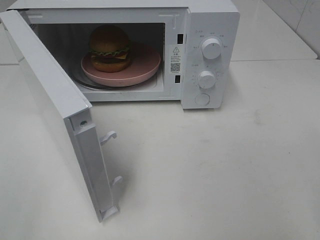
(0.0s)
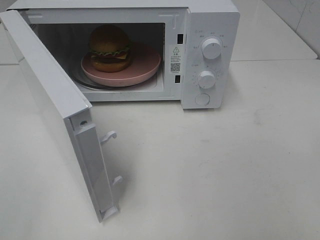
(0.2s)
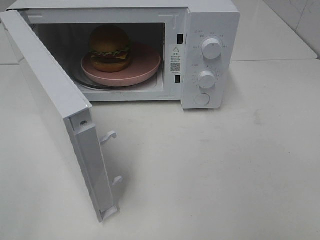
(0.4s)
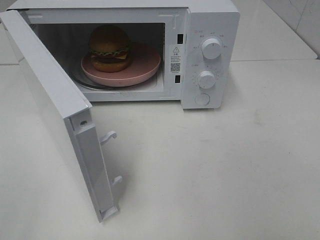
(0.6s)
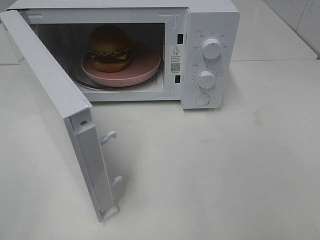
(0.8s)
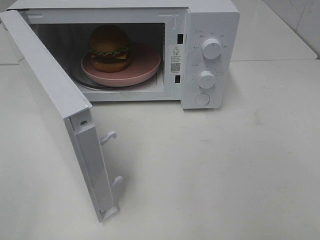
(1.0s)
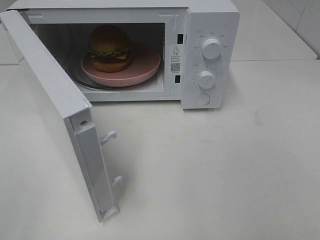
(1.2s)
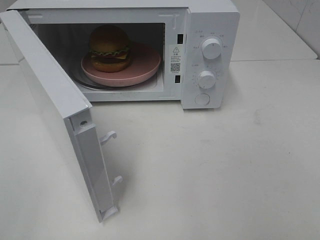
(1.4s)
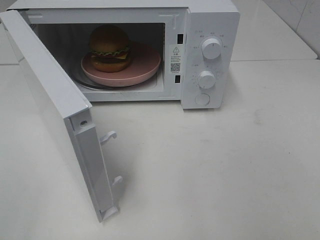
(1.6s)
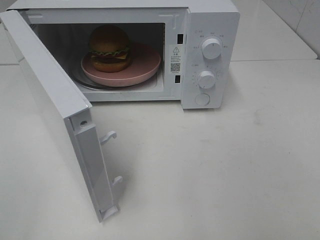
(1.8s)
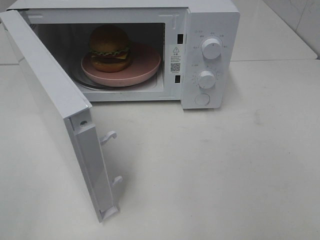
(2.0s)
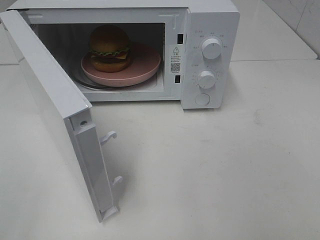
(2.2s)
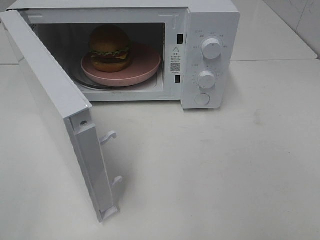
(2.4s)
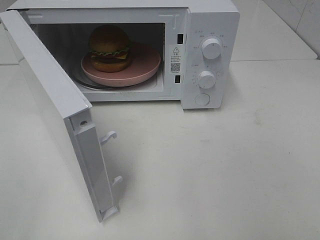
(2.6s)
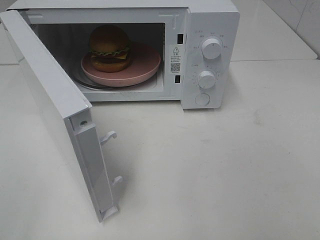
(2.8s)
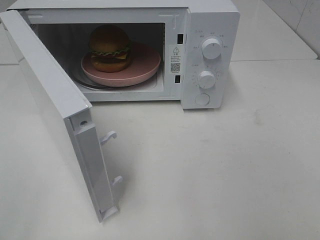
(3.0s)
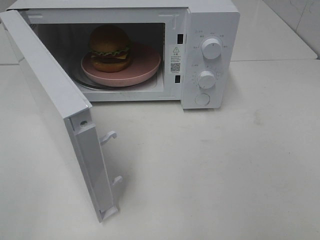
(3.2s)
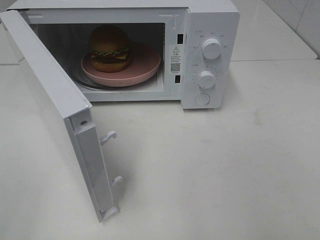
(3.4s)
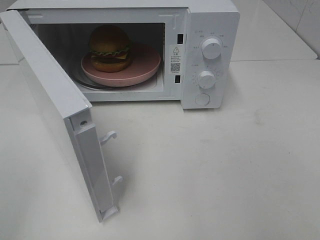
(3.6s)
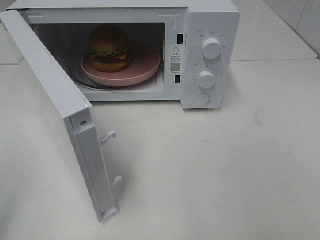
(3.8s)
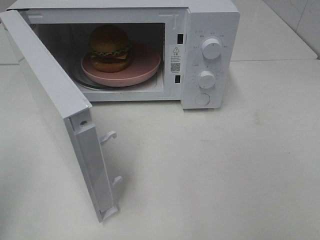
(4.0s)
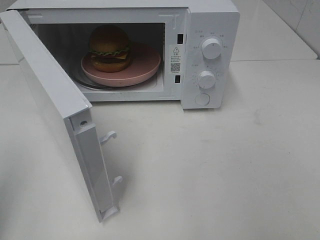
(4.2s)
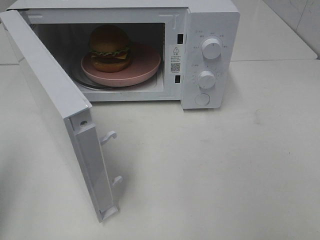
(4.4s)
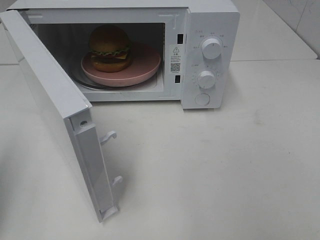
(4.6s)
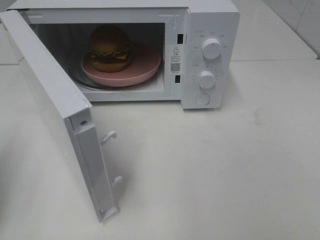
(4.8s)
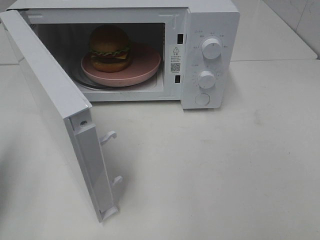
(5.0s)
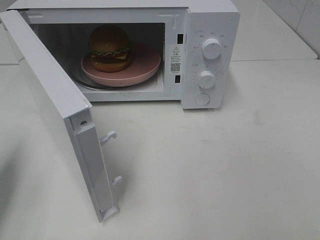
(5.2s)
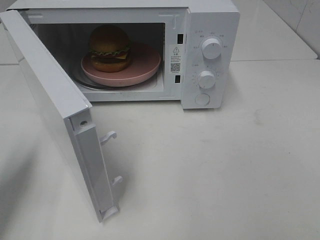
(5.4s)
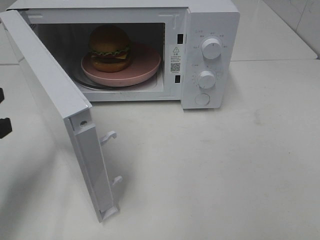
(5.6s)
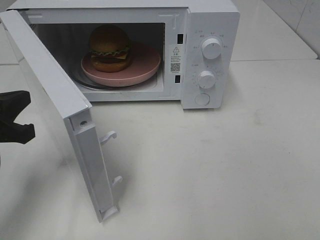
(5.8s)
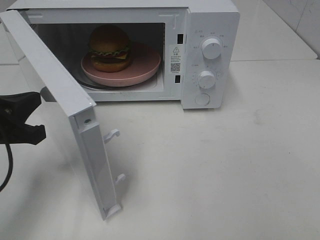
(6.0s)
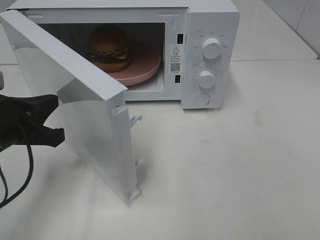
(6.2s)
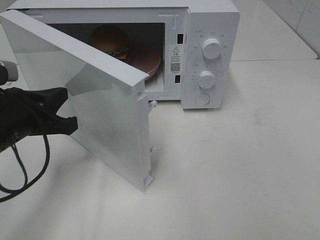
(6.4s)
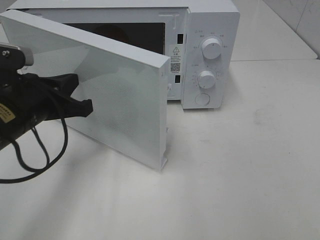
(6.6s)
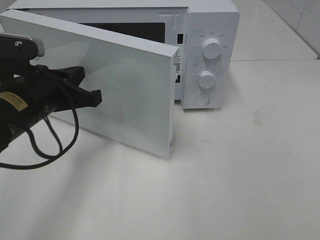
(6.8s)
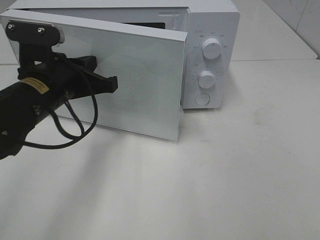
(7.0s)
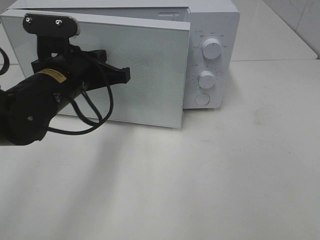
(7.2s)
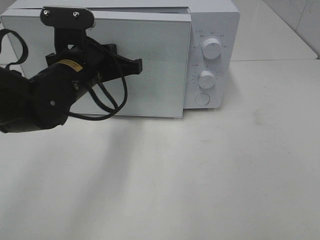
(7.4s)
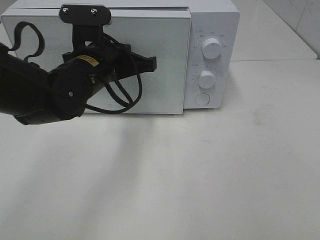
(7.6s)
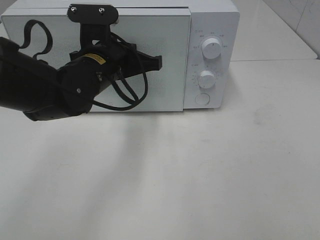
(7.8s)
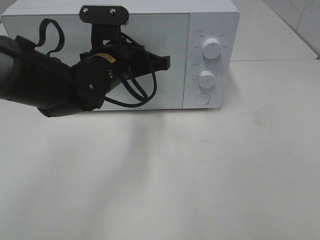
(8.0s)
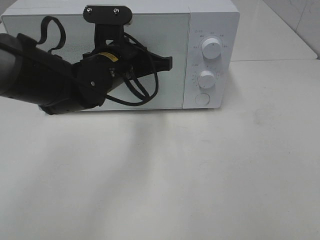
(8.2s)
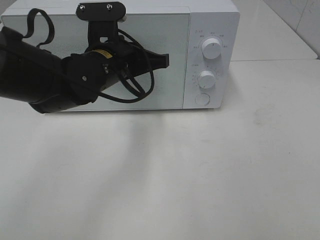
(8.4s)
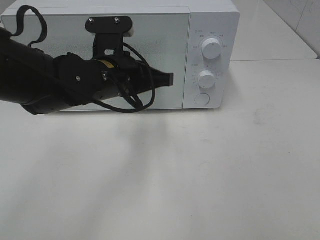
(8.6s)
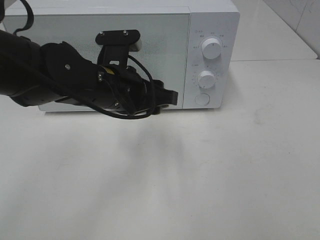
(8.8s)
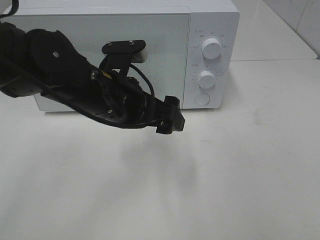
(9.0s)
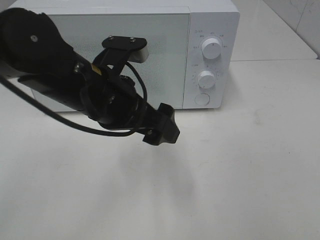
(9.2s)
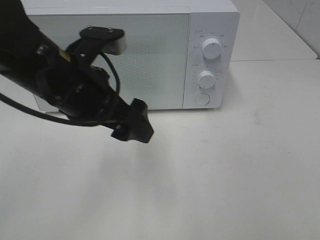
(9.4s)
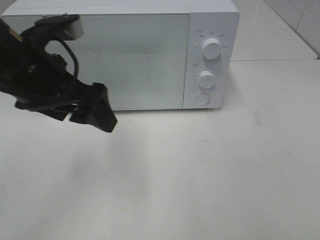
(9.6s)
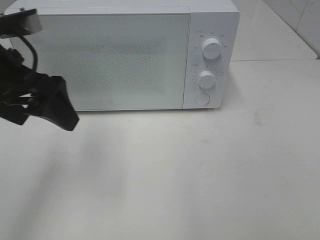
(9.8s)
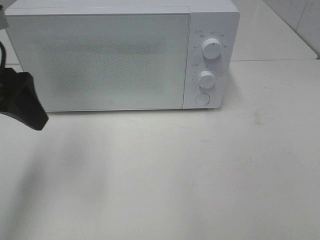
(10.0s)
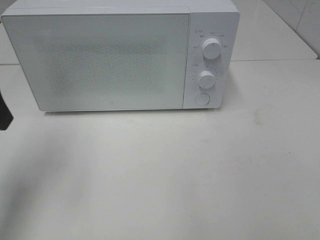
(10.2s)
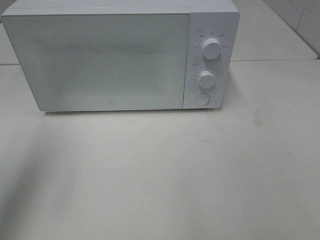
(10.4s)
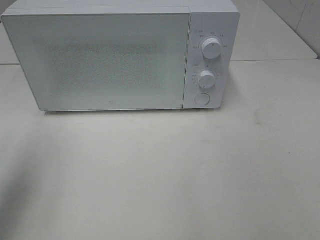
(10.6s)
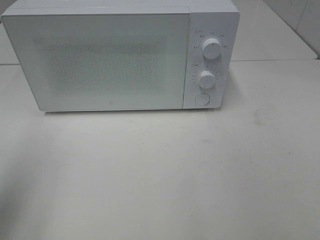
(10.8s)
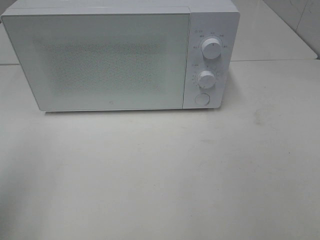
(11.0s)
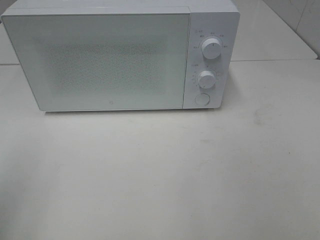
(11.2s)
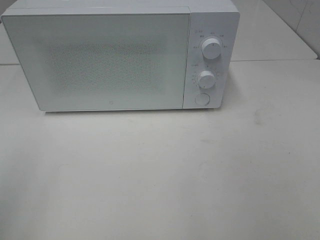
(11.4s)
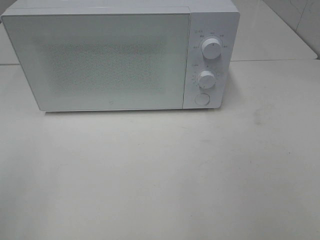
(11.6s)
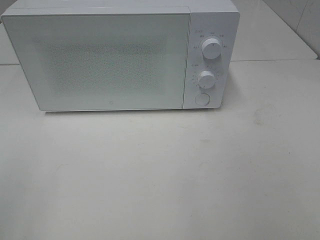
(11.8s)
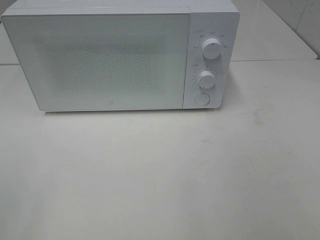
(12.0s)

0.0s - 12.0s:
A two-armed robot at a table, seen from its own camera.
Task of the whole recording: Heat the burger.
Step, 0.0s - 8.6s: Left hand: close the microwave door.
1.6s - 3.0s: Both grippers stay about where they are.
3.0s - 4.4s: The left gripper is displaced forward by some 10 cm, and closes its fingers.
4.4s - 6.0s: The left gripper heads downward, to the right and forward, covering roughly 15 cm.
6.0s - 7.6s: The left gripper heads to the right and forward, covering roughly 20 cm.
7.6s - 9.0s: The left gripper moves backward, approximately 5 cm, and opens up.
9.0s - 10.4s: The left gripper heads to the left and upward, covering some 25 cm.
10.4s - 12.0s: The left gripper is displaced backward by some 20 cm.

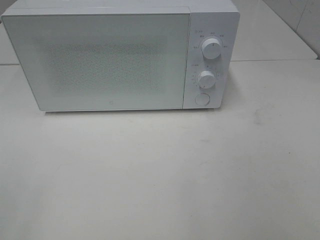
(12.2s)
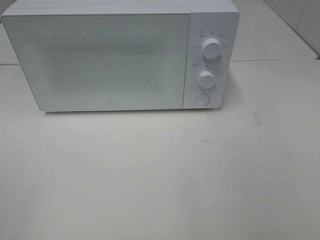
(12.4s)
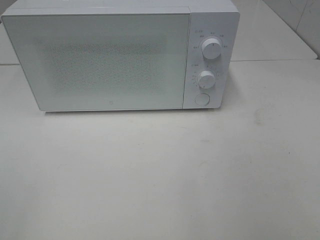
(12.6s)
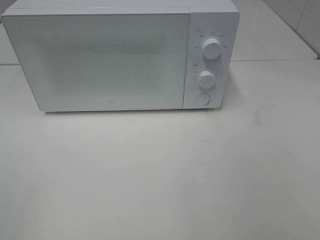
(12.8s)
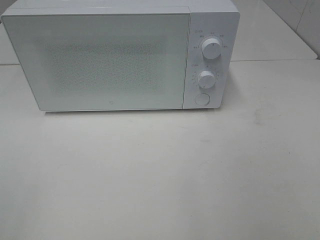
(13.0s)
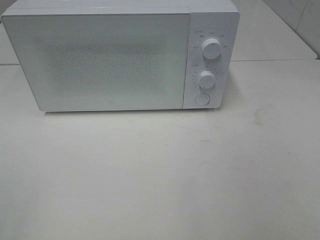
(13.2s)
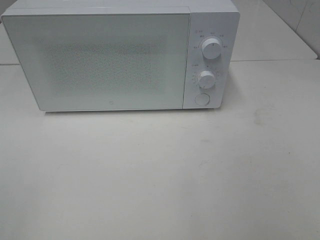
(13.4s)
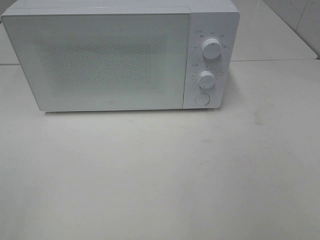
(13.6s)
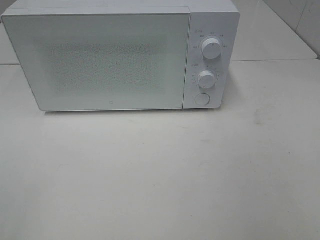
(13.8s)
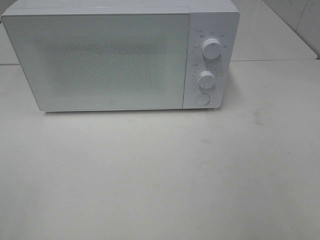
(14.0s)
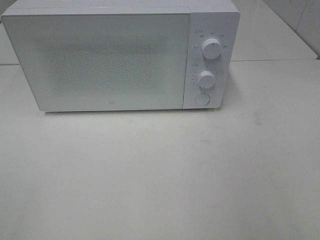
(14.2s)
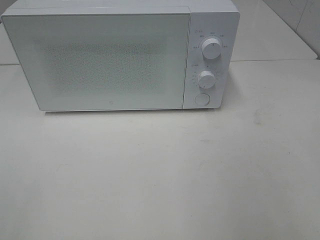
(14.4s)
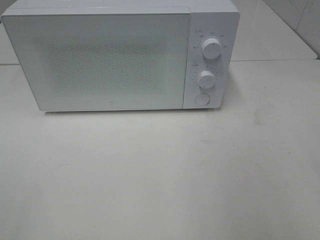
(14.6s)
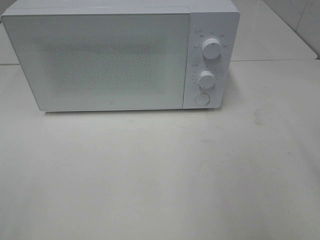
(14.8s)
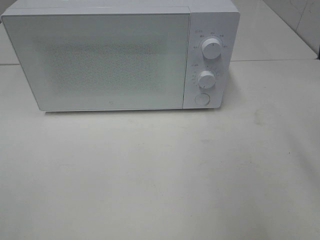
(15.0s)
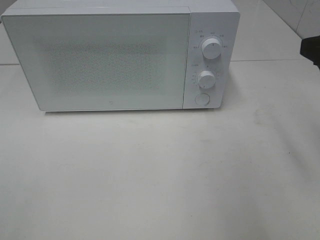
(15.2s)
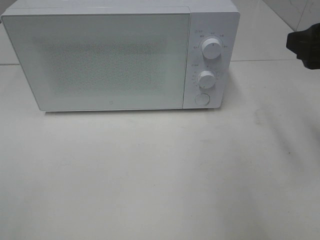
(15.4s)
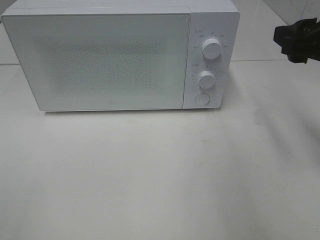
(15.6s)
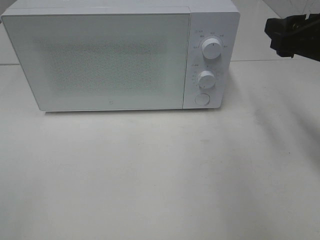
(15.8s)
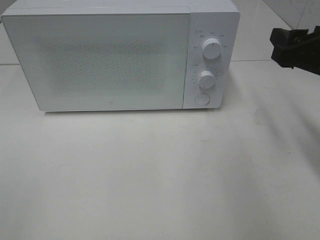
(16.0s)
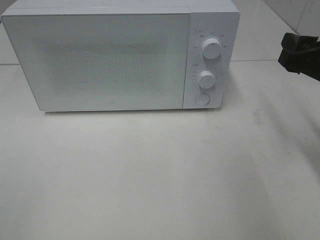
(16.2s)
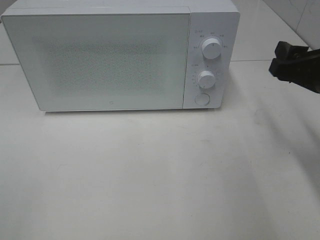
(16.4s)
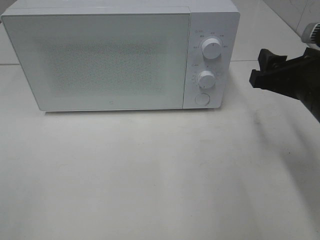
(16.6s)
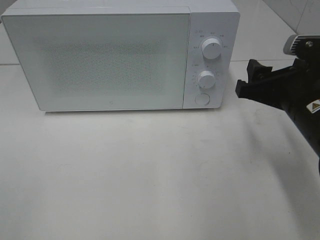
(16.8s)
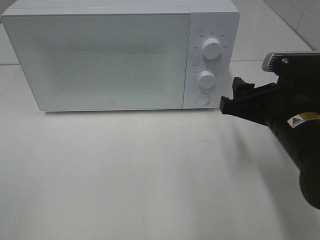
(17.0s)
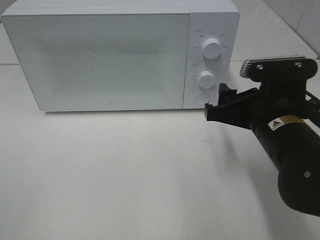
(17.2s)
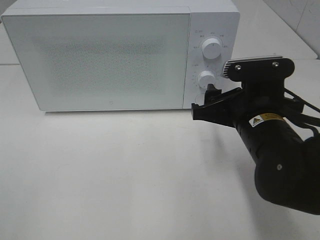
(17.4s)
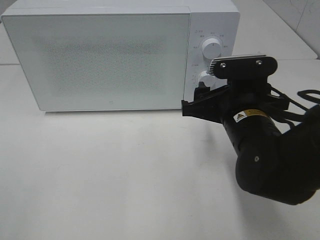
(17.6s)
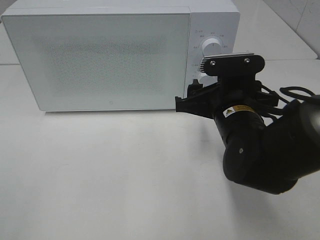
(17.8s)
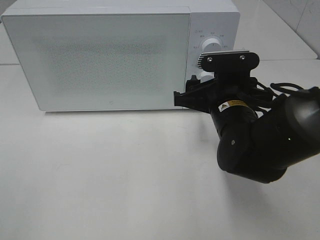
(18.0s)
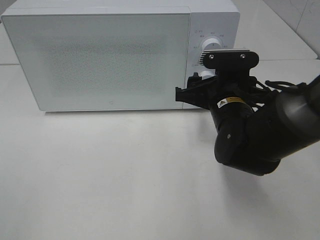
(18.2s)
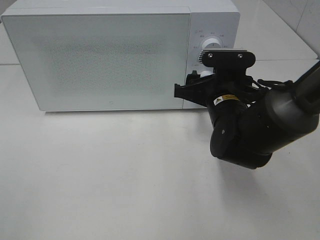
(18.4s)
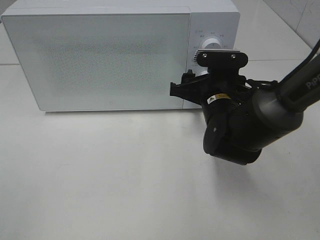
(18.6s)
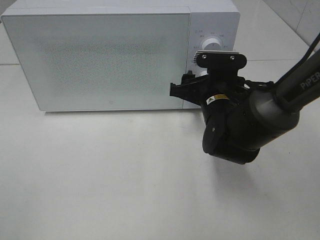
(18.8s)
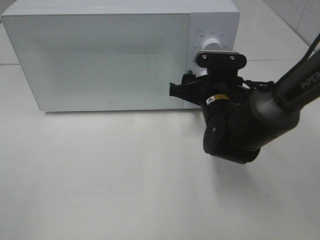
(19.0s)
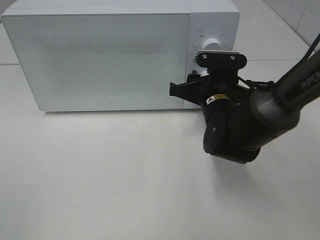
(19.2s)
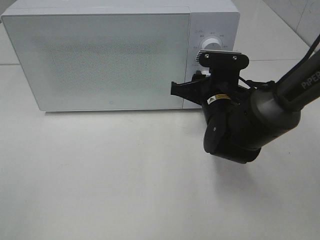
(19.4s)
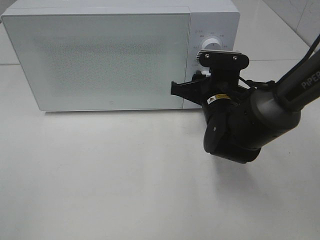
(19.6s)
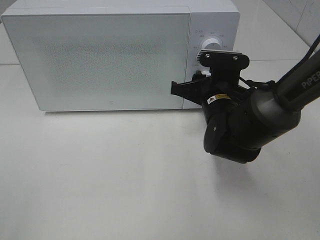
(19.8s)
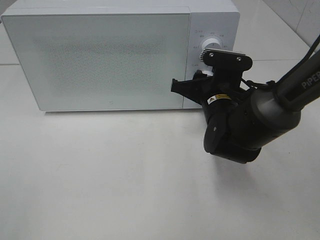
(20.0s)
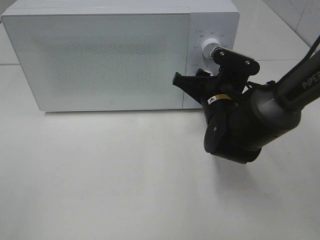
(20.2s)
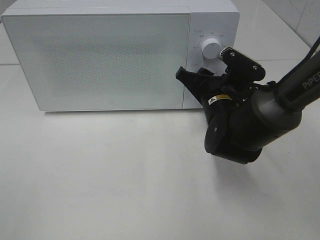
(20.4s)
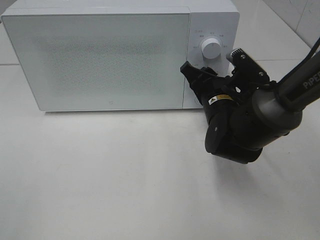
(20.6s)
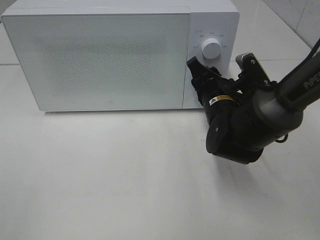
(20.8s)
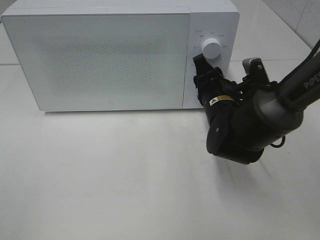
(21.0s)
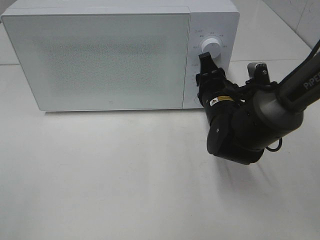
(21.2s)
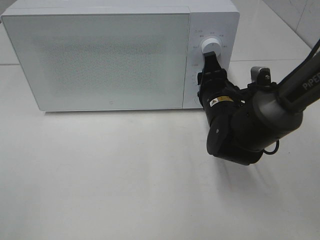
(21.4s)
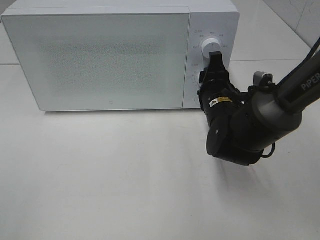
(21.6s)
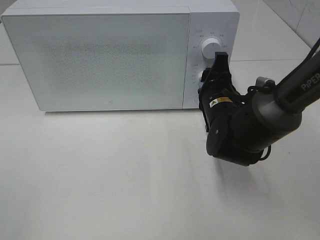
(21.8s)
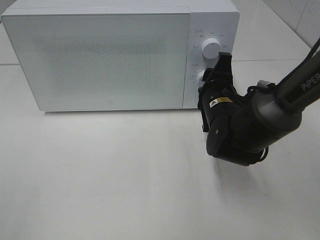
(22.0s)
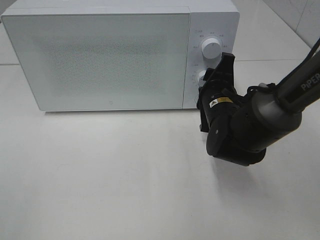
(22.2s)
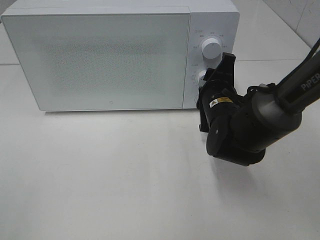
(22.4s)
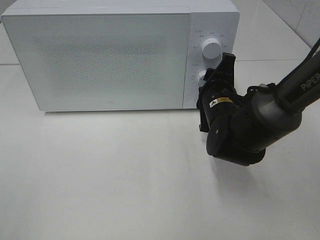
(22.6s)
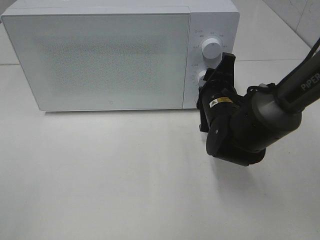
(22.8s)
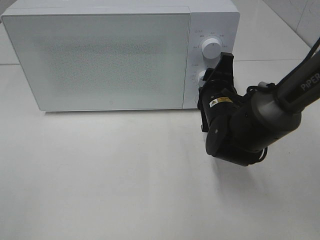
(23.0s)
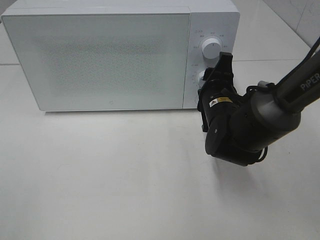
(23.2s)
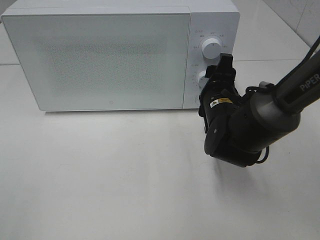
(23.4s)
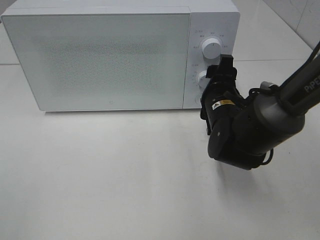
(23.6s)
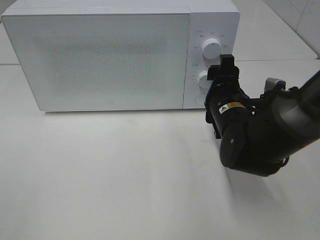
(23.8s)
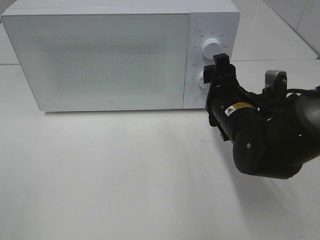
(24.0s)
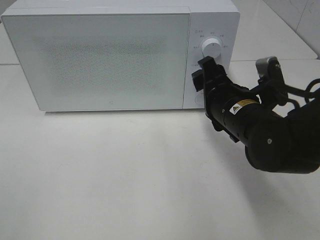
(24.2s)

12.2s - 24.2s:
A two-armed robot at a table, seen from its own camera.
Task of the whole recording: Heat the burger.
Step, 12.2s - 23.2s: Right hand: twist timer button.
13.8s - 15.2s: The right gripper goes some 20 cm forward.
15.2s - 16.6s: The right gripper goes approximately 10 cm downward.
16.6s - 18.2s: The right gripper shifts roughly 15 cm to the left, downward and forward.
18.2s - 19.8s: The right gripper closes.
22.6s - 24.2s: The right gripper travels backward by some 5 cm.
